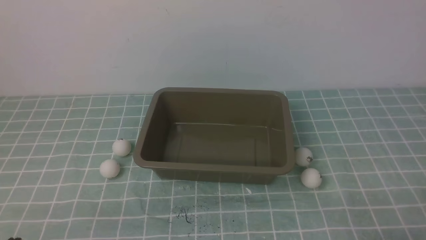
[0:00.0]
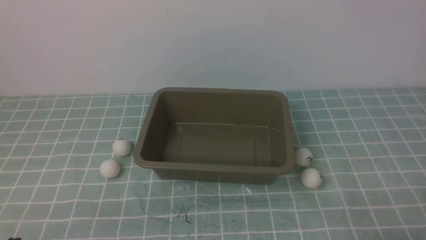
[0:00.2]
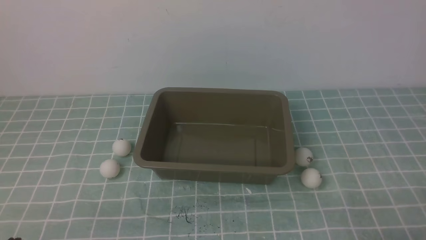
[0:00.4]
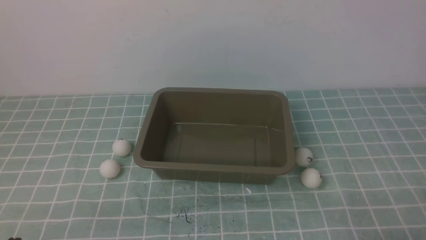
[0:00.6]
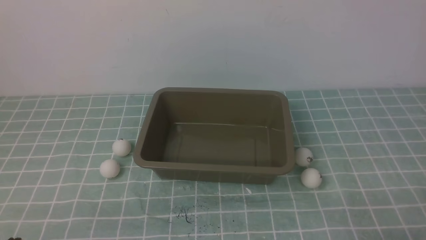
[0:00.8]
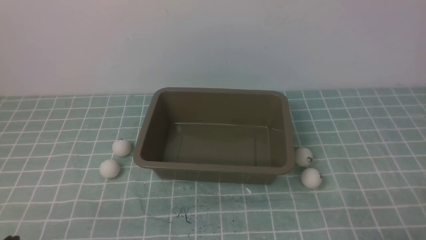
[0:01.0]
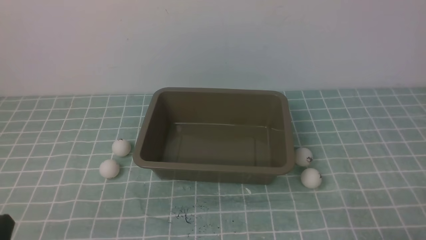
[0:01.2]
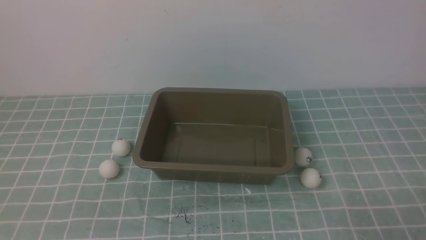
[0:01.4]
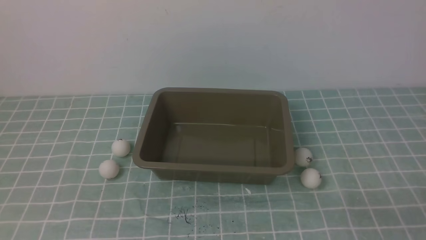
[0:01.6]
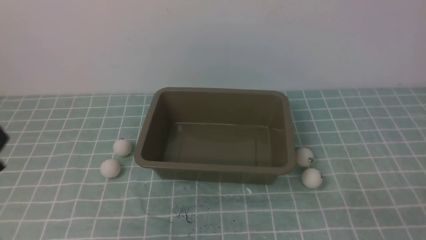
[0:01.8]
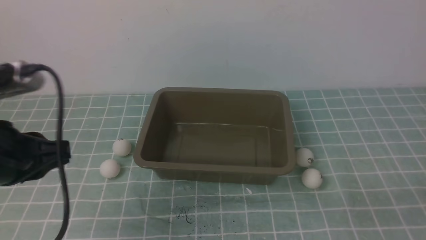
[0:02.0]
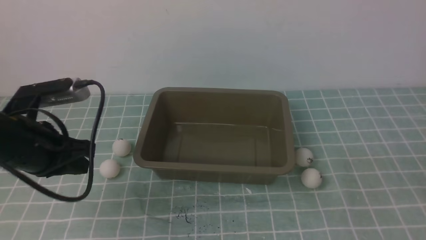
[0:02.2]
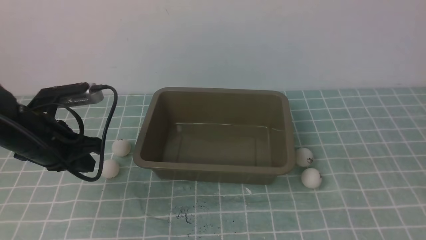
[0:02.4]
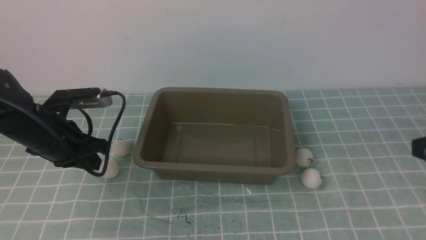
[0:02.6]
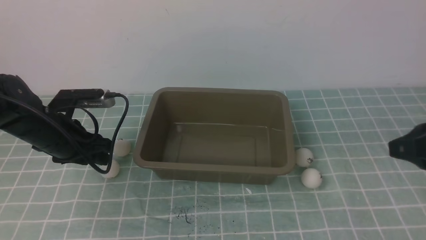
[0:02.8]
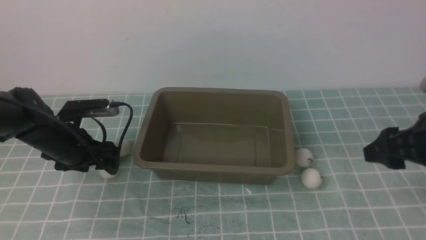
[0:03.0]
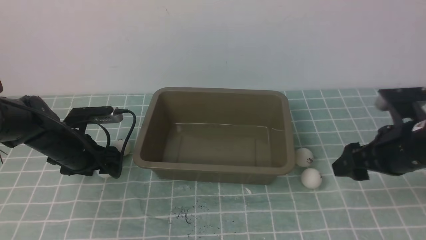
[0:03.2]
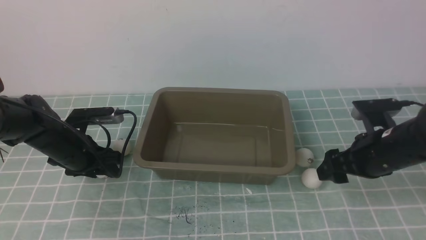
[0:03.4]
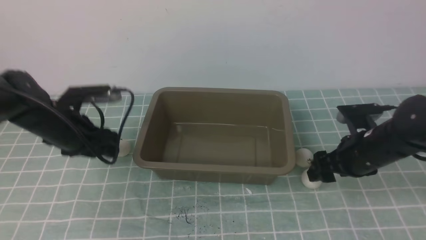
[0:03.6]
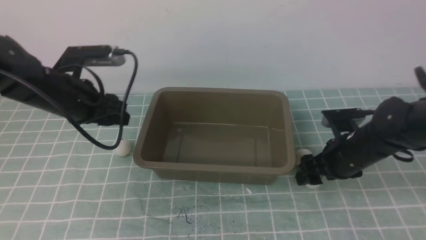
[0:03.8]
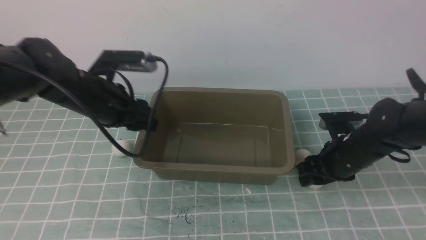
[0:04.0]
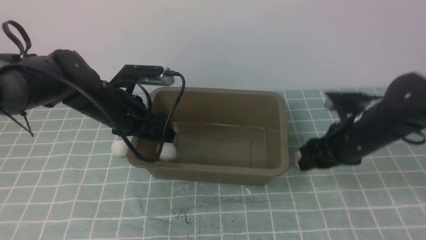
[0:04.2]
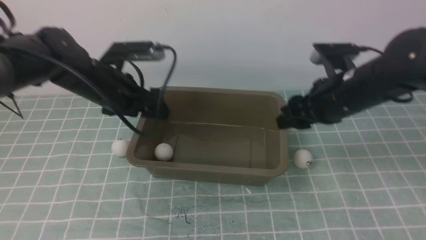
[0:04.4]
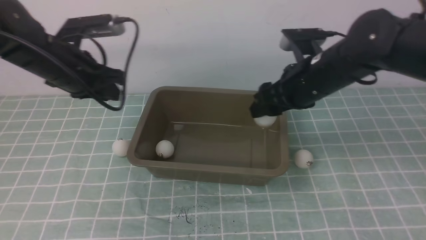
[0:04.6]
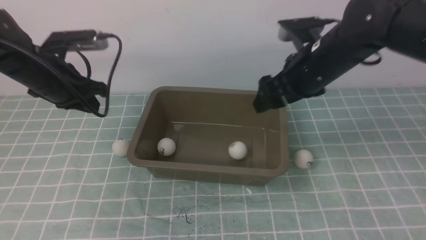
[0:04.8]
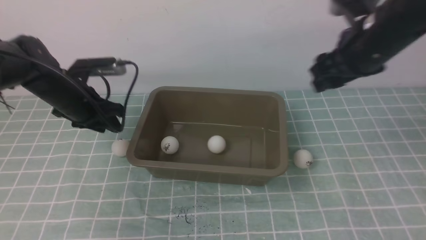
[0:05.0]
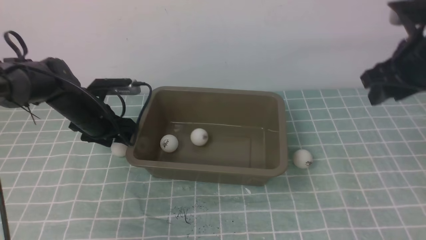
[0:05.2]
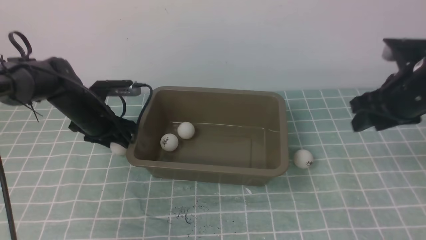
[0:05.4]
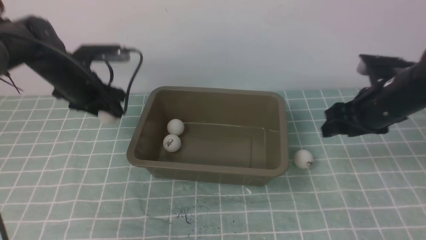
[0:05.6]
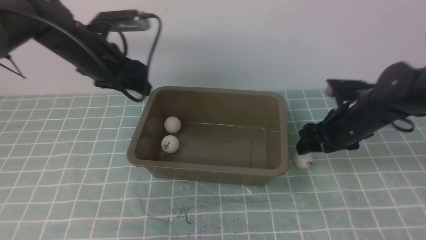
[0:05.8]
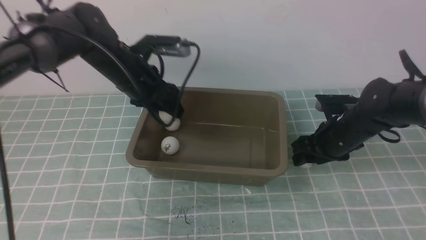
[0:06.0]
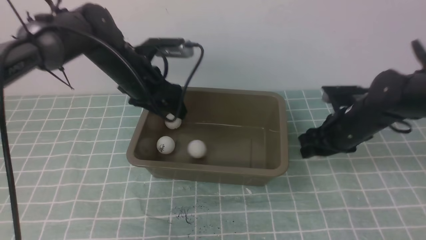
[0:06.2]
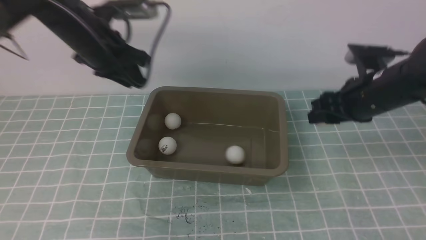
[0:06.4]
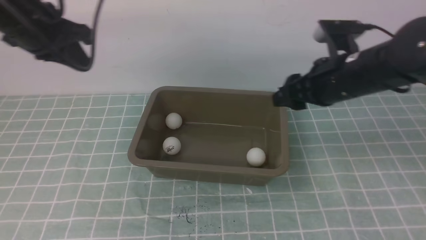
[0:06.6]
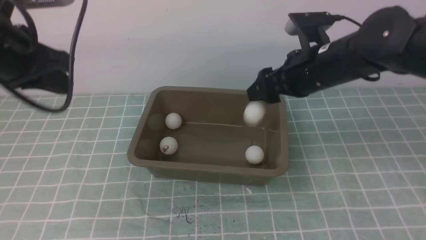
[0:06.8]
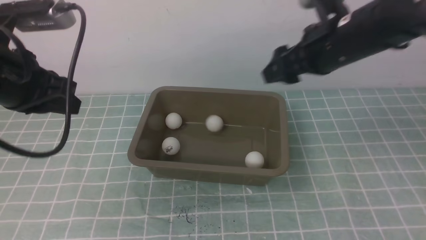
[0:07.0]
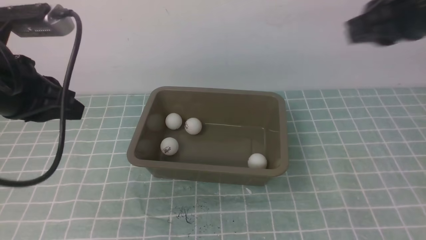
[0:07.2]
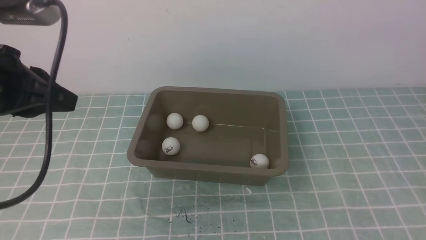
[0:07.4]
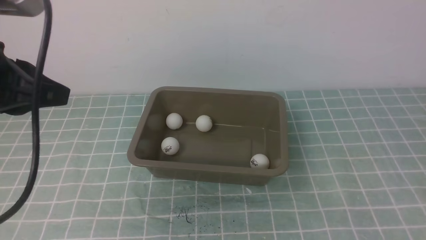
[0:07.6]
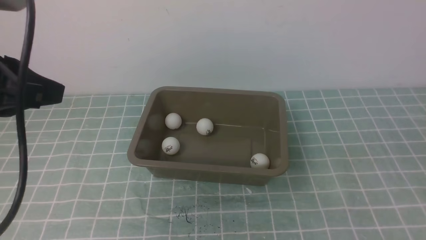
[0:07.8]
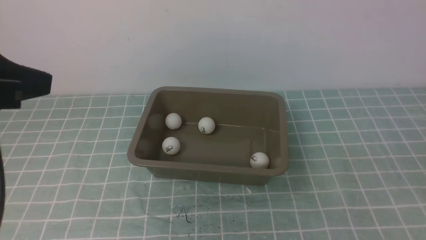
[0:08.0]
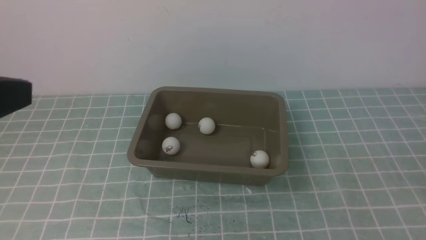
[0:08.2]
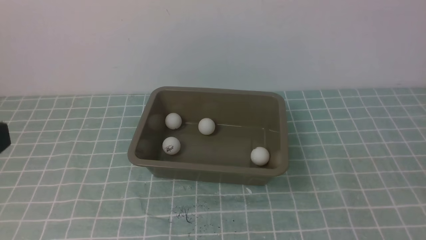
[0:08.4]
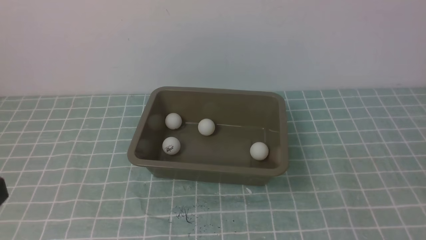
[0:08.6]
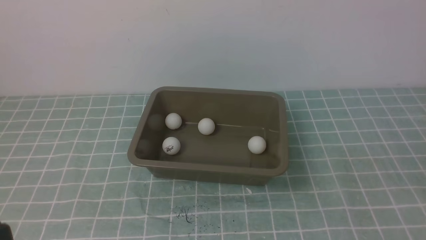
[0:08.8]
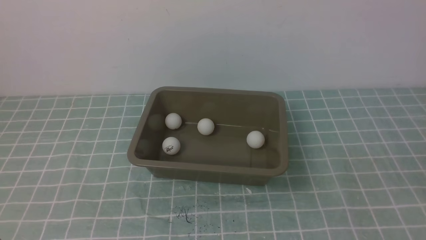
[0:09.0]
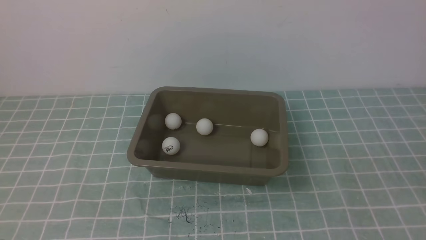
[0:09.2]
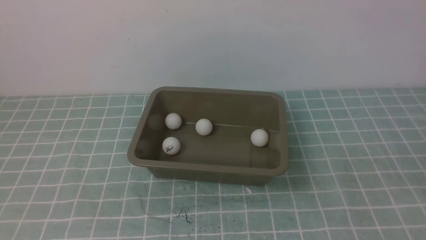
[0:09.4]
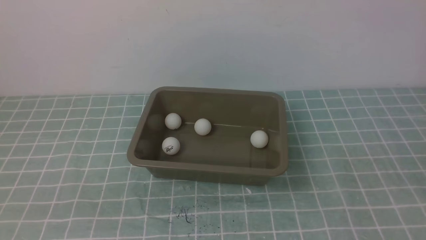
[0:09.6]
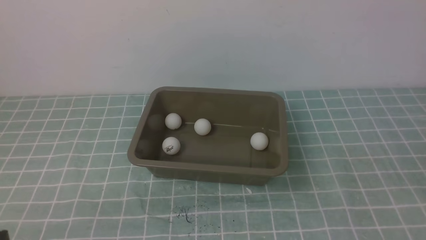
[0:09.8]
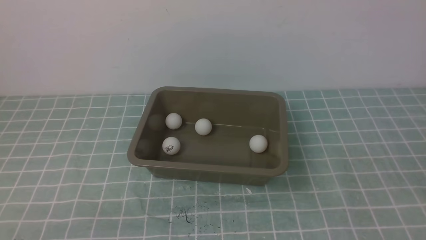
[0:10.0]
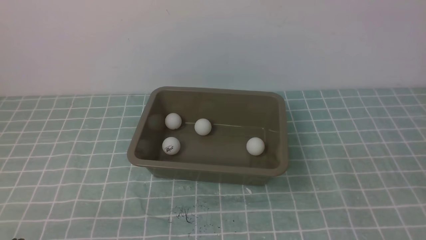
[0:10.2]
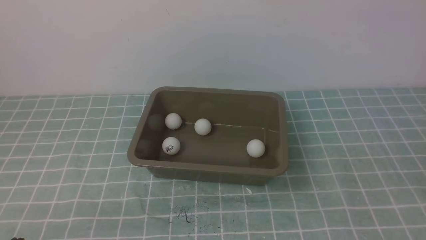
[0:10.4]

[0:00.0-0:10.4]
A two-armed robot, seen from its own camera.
Step, 0:00.0 to 0:03.6: use the left arm to clamp the table tennis ball closest to it.
Step, 0:03.8 to 0:04.0: use the left arm to put the table tennis ball into the box.
Step, 0:04.4 to 0:04.6: use the right arm to put the table tennis ball into the box.
Step, 0:04.8 to 0:05.4: use the left arm to clamp the table tennis ball closest to it.
Step, 0:05.6 to 0:06.0: use the left arm to put the table tennis ball into the box.
Step, 0:06.4 to 0:06.6: use the right arm to put the table tennis ball into the box.
0:01.4 to 0:03.0: The left gripper moves forward, approximately 30 cm, and opens, while the right gripper heads forward and upward, covering roughly 20 cm, and opens up.
0:03.0 to 0:04.4: The left gripper is displaced upward and to the right by roughly 10 cm. The right gripper goes some 15 cm forward and to the left, and travels downward and back again, some 10 cm each way.
0:04.4 to 0:06.0: The right gripper is displaced downward by about 10 cm. The left gripper moves approximately 10 cm downward and comes back, and closes, then reopens.
0:06.0 to 0:07.4: The left gripper travels backward, upward and to the left by roughly 25 cm, and closes its fingers. Meanwhile the right gripper moves upward and backward, about 35 cm, and closes.
0:07.4 to 0:09.0: The left gripper goes roughly 25 cm backward; the right gripper moves backward and downward, about 20 cm.

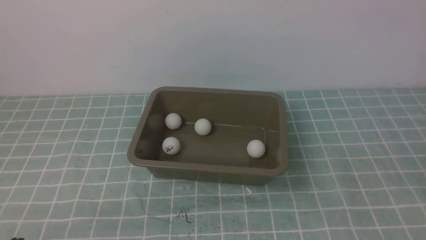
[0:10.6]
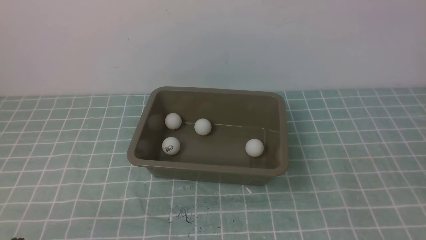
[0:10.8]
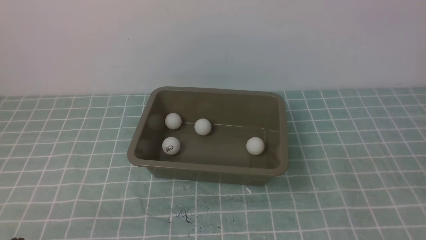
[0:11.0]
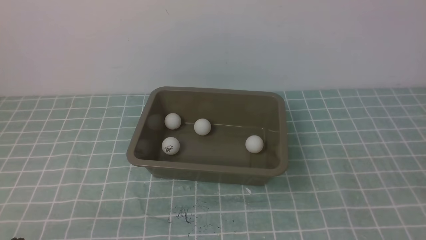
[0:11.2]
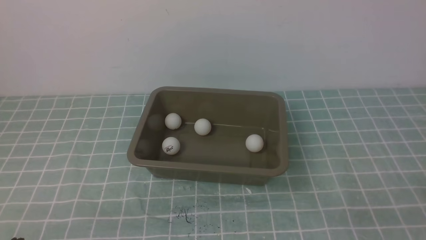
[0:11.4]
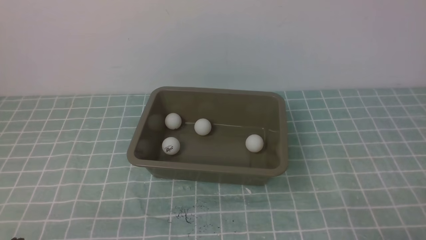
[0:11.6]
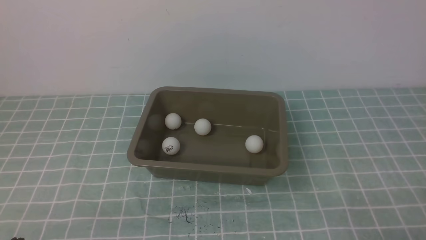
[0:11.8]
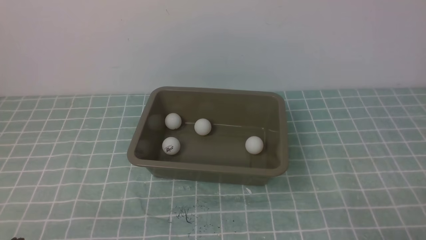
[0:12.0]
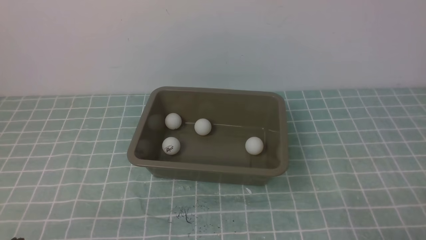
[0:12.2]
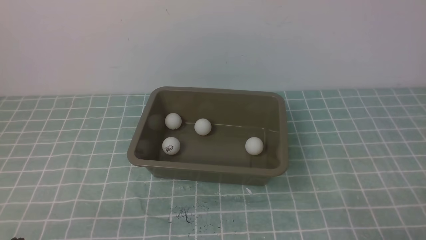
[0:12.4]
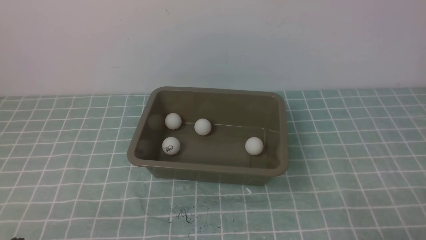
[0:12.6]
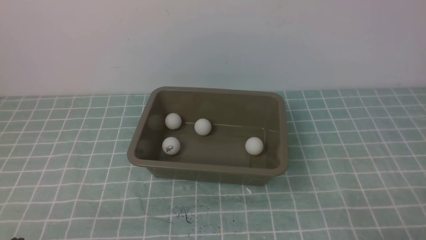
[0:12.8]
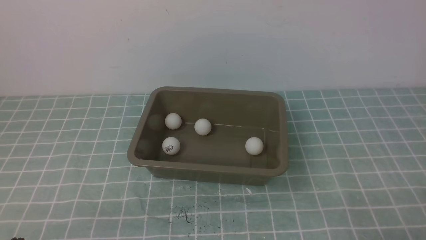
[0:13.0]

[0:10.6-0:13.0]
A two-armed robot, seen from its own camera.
0:11.8 to 0:13.0: Both grippers stay about where they are.
